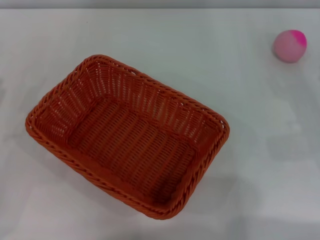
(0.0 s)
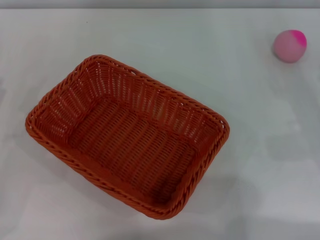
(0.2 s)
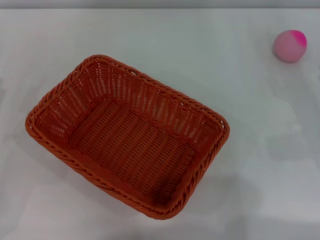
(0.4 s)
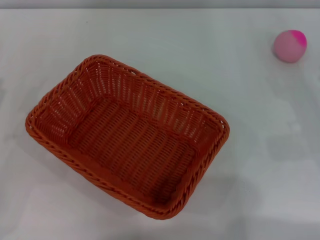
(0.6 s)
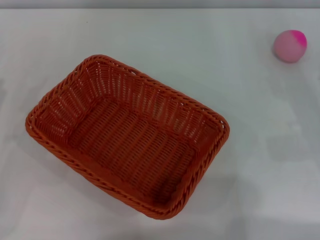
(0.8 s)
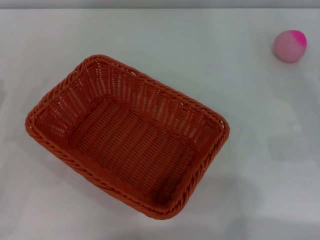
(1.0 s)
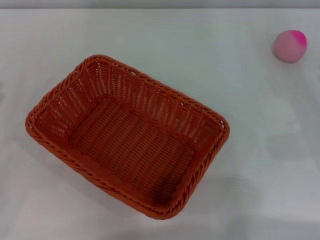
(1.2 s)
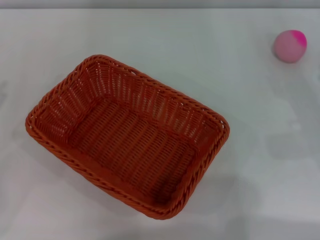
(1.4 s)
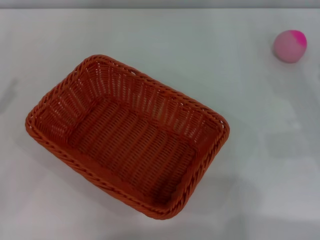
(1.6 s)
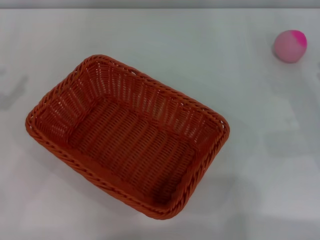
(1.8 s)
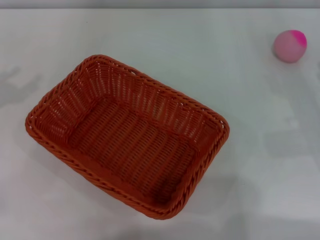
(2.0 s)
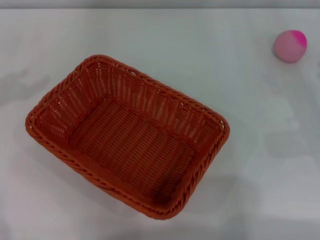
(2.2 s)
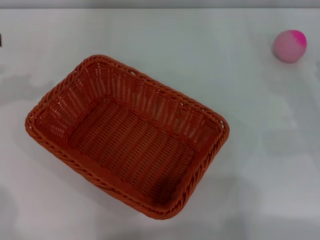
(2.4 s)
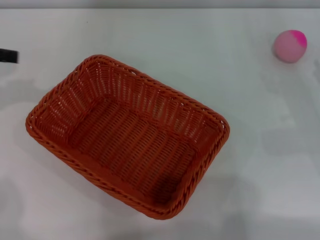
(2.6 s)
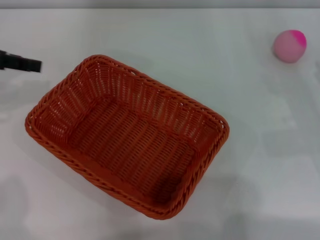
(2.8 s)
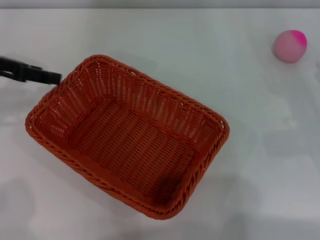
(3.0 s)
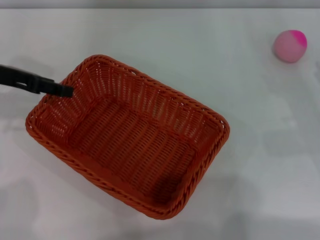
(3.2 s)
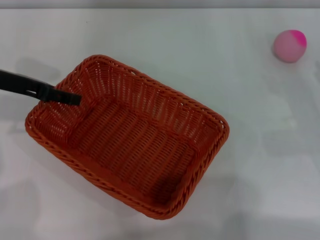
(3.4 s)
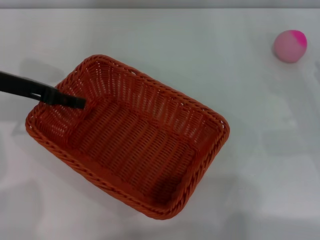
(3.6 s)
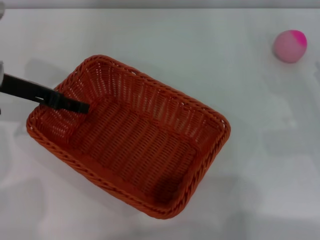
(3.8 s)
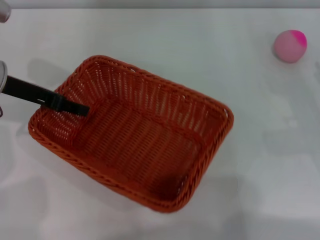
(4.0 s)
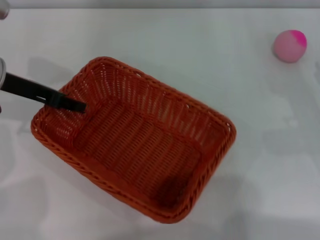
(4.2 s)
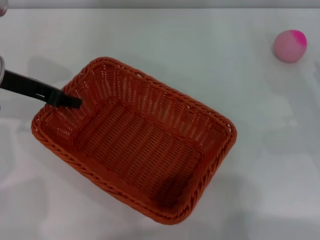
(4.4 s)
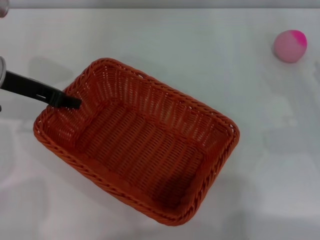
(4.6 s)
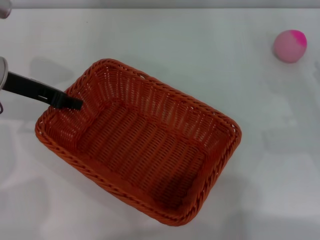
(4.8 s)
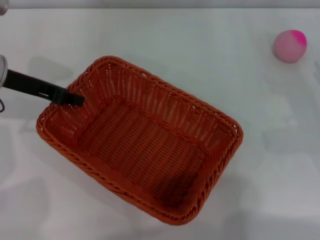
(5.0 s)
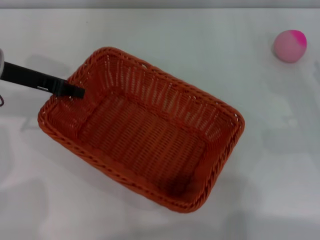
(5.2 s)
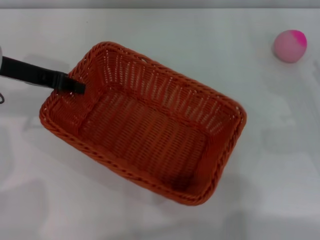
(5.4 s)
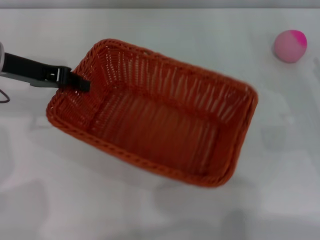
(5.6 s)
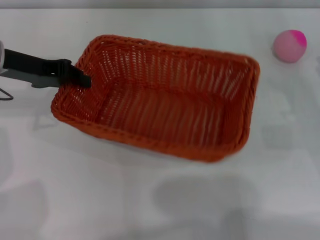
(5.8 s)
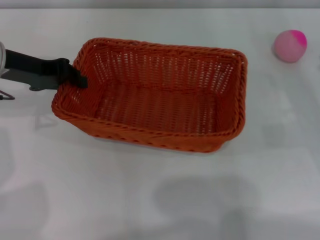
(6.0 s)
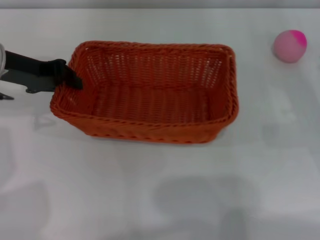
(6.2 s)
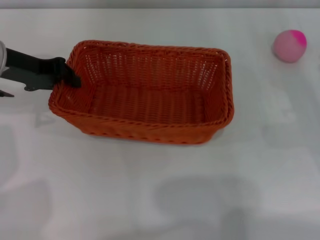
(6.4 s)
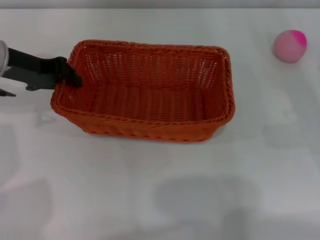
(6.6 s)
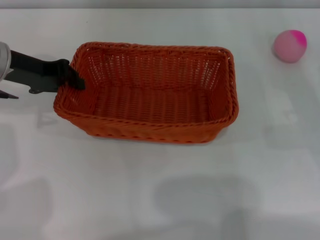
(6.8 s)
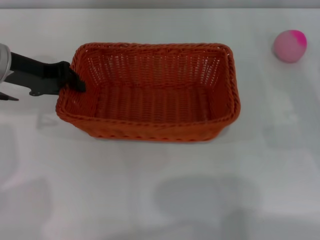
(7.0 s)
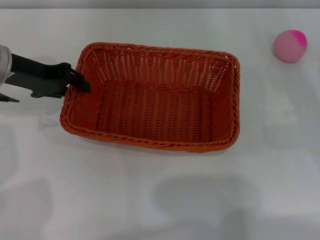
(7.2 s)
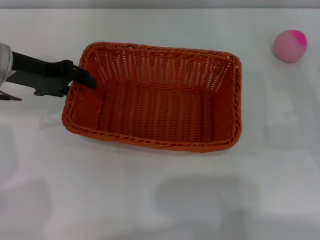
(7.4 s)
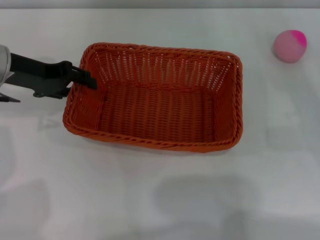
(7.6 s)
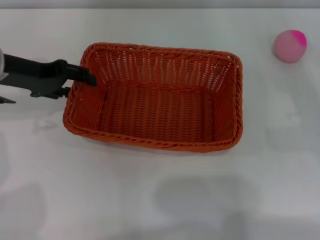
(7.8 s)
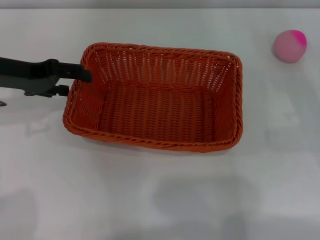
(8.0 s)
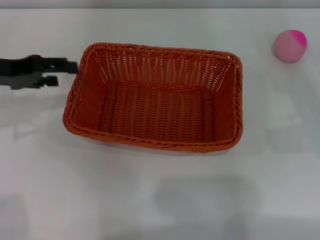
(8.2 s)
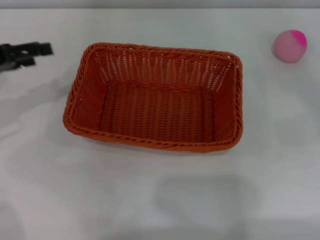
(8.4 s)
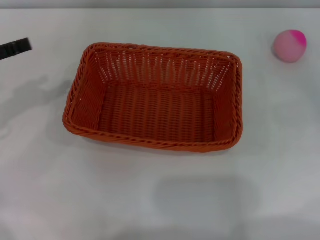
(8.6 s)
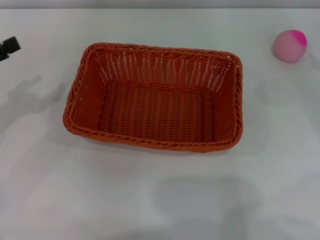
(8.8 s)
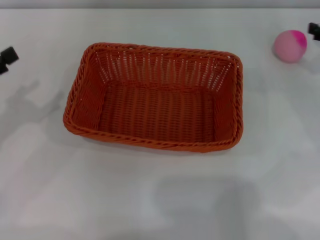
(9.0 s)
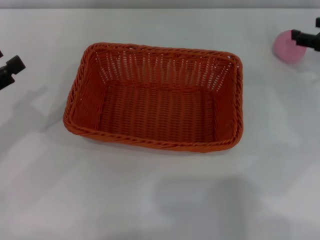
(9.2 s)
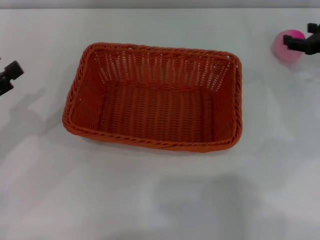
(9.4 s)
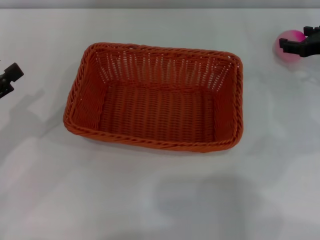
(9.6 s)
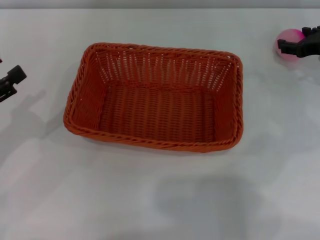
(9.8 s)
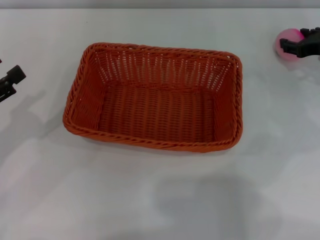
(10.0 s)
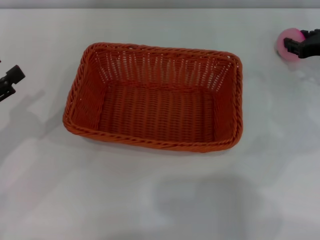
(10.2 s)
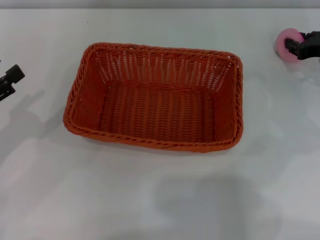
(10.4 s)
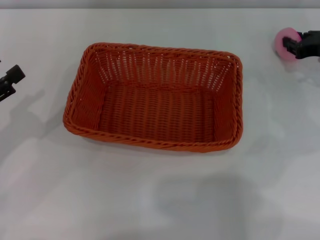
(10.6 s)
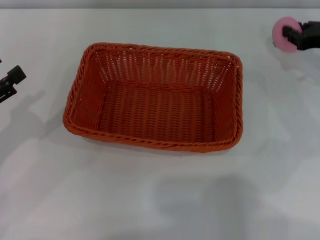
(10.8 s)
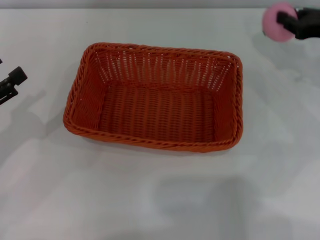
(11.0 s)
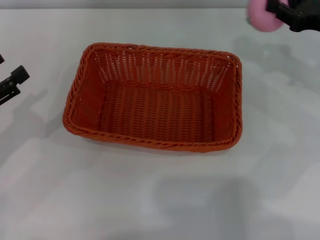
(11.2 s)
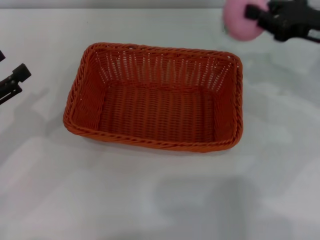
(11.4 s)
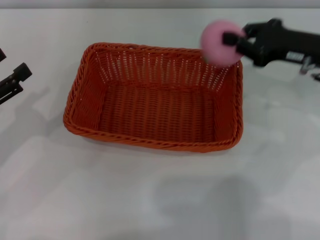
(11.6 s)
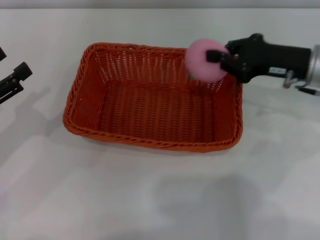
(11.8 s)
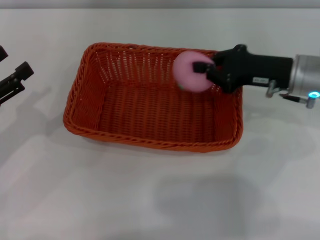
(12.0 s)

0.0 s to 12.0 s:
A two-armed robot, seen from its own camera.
Step, 0.0 to 5.4 s: Pick up the light basket with the left gripper.
Step, 5.8 to 8.2 s: Place the light basket in the center of view with the right gripper.
Step, 8.4 to 11.2 s: Pick up the peach with the left gripper.
1.6 to 3.0 s: The left gripper moves forward, to the right and upward, roughly 15 cm.
3.0 to 4.4 s: The left gripper changes place by approximately 5 cm.
4.4 to 6.0 s: The left gripper closes.
6.0 to 7.6 s: The left gripper opens.
7.6 to 9.0 s: The left gripper travels to the left and backward by about 15 cm, and opens.
9.0 to 10.4 s: The right gripper ends up roughly 5 cm from where it was, and closes up.
10.4 to 12.0 s: The right gripper shifts about 10 cm to the left, and closes up.

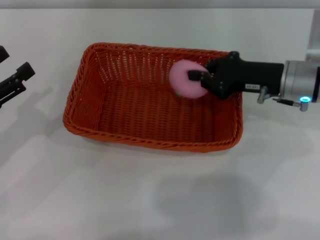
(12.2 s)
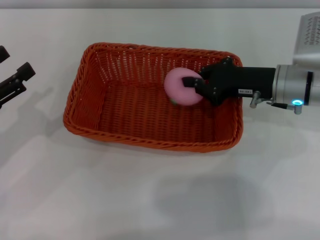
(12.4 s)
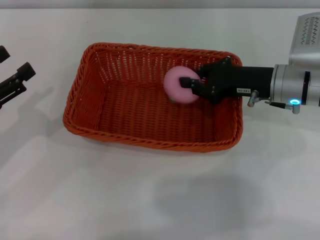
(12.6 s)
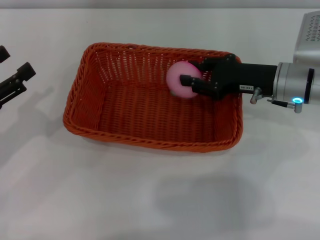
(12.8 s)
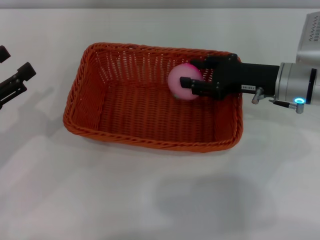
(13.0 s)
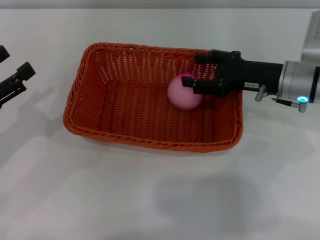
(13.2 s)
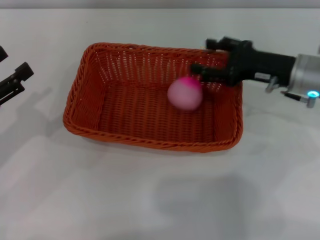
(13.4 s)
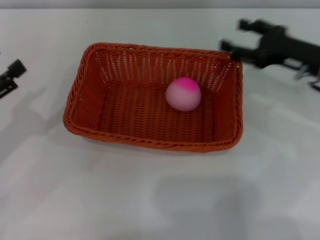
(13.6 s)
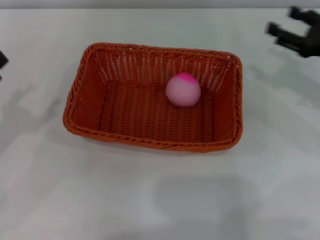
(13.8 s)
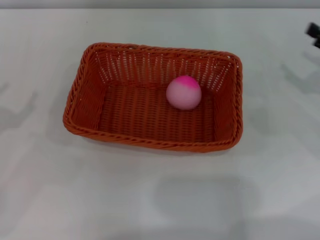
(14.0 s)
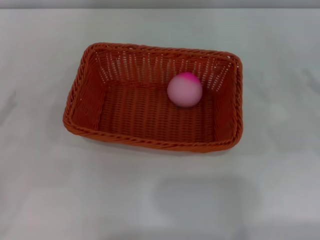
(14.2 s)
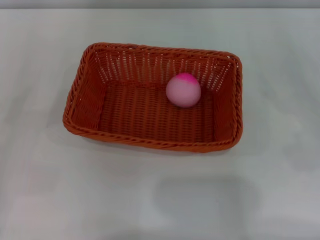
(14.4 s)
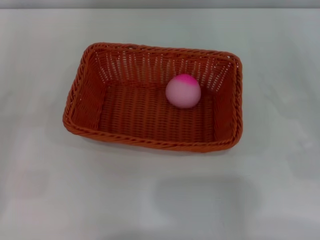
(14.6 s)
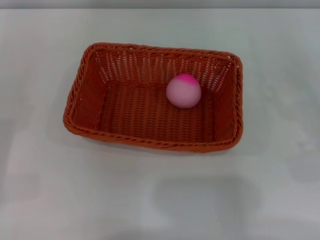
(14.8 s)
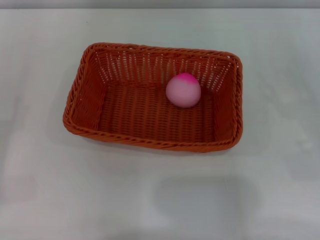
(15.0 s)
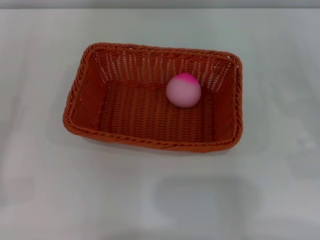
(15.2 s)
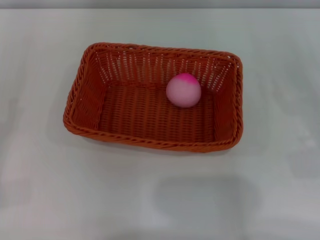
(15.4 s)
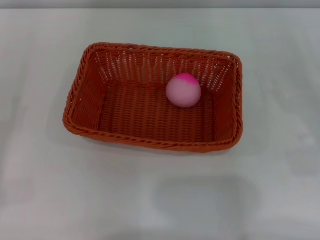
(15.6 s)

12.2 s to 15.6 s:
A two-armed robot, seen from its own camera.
12.2 to 13.8 s: The right gripper moves to the right, roughly 10 cm, and opens up.
13.8 to 15.6 s: The right gripper goes about 10 cm backward and to the right.
